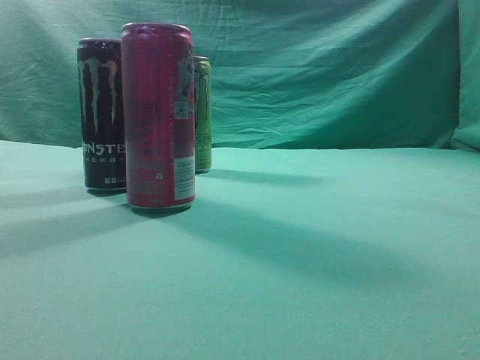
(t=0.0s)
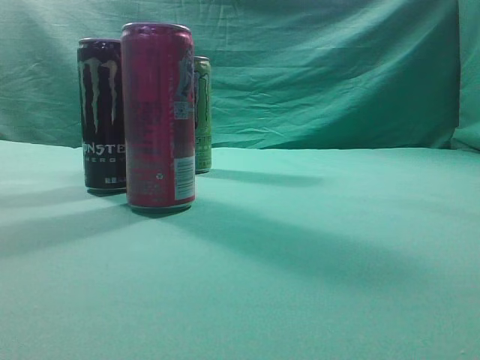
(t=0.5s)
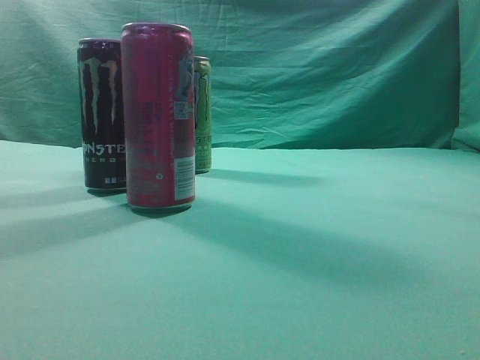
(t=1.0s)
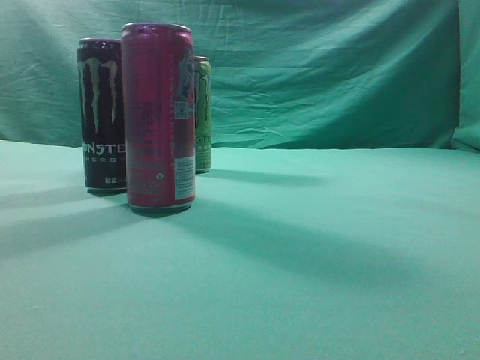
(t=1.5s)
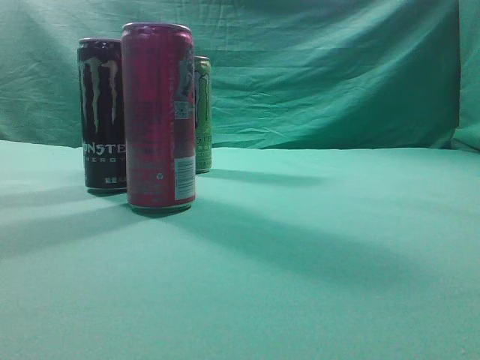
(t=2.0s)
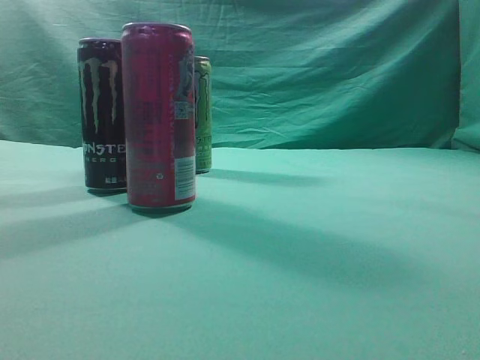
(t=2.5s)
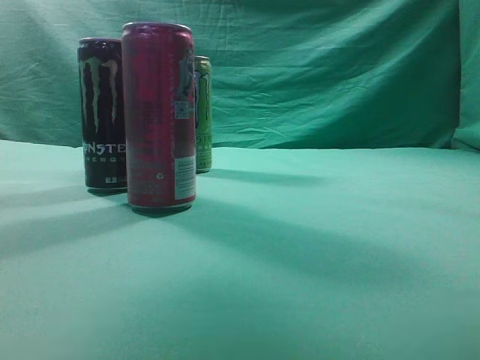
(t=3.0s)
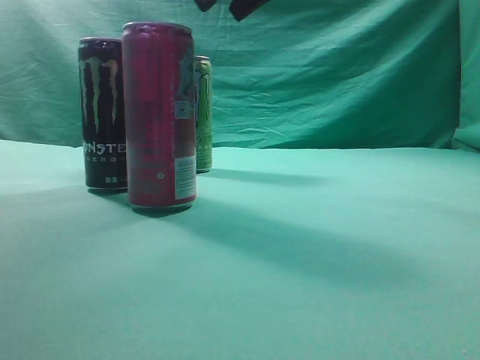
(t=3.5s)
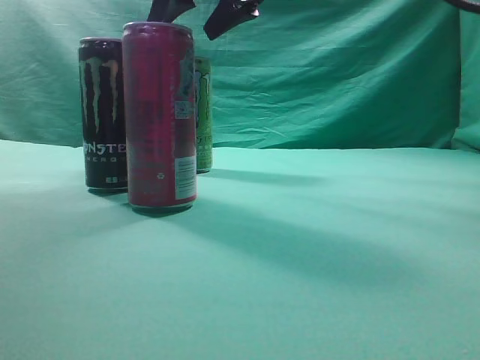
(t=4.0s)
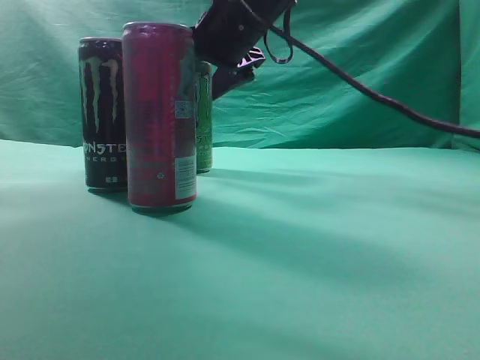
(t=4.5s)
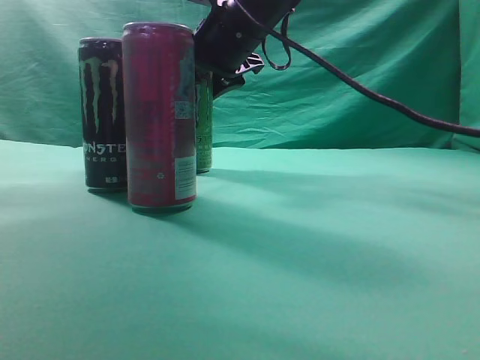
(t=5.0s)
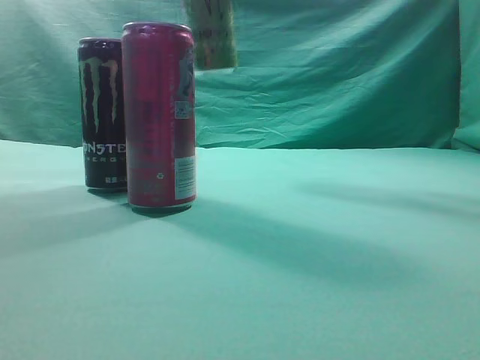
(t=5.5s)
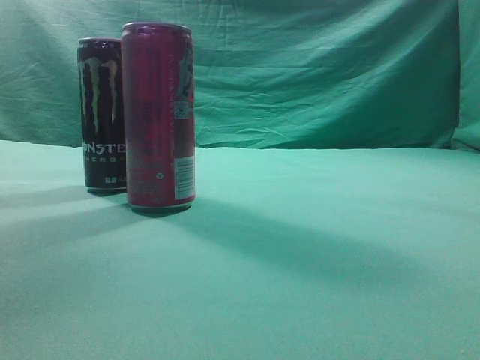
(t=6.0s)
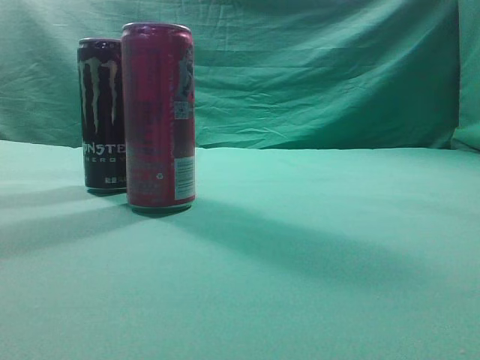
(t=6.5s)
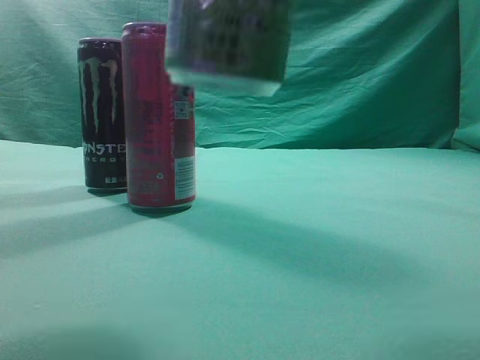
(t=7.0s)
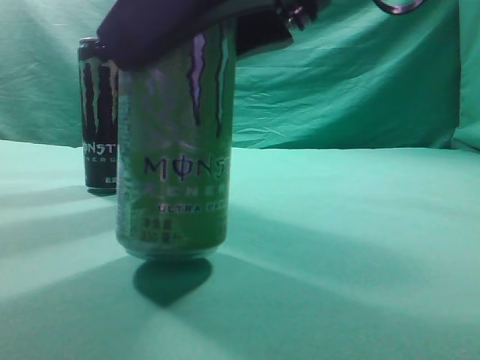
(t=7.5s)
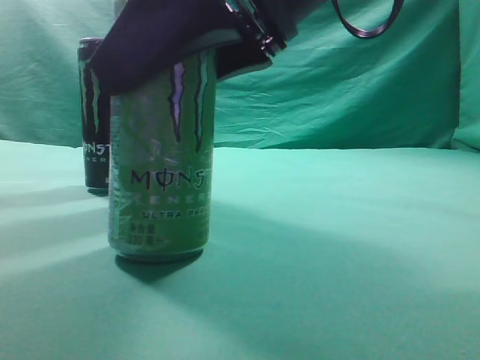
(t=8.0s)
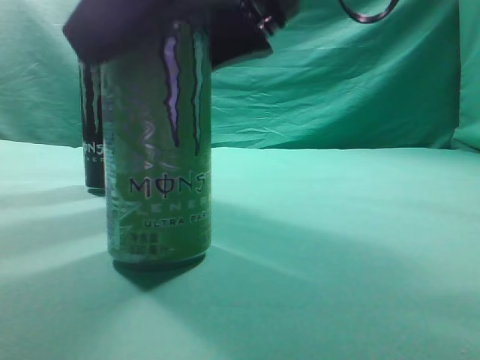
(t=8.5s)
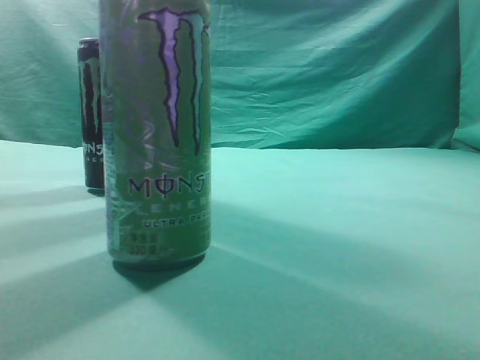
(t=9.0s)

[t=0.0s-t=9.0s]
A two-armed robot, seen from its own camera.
Task of the whole recording: move one drink among three beverages.
Step, t=0.0s to t=5.5s: Grasp the beverage bottle placed at the back of the desk.
t=2.0s to t=4.5s: The right gripper moves forward and to the left, roughly 50 cm, and opens.
t=4.5s to t=7.0s: The right gripper shifts approximately 25 cm backward, and closes.
